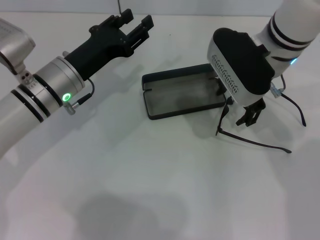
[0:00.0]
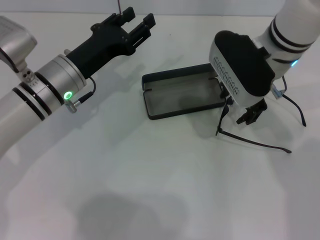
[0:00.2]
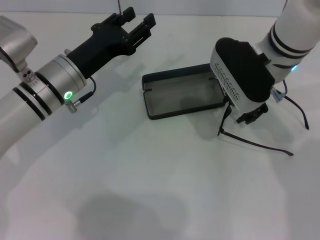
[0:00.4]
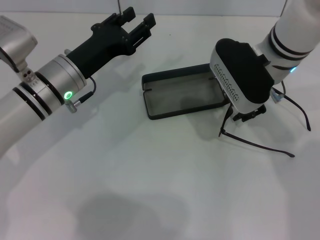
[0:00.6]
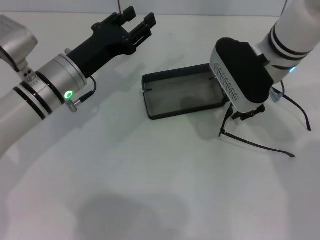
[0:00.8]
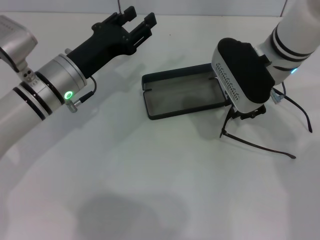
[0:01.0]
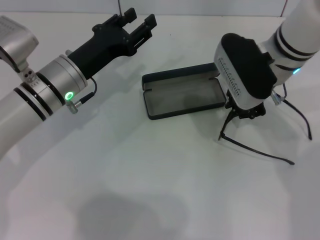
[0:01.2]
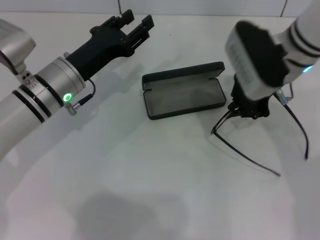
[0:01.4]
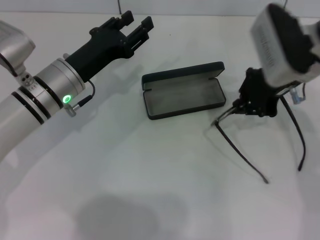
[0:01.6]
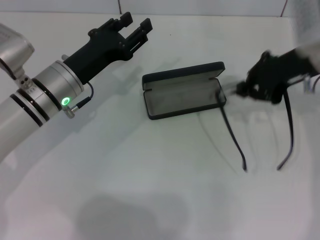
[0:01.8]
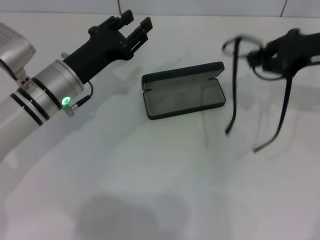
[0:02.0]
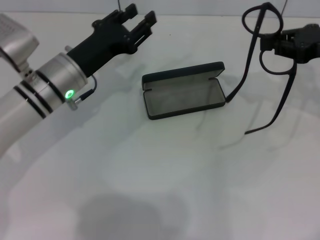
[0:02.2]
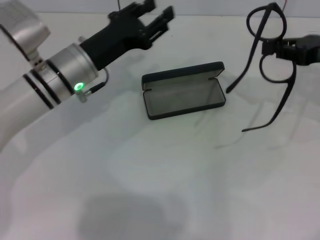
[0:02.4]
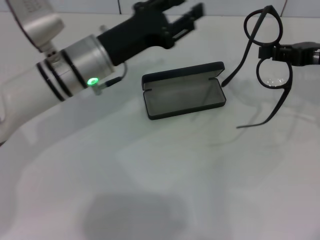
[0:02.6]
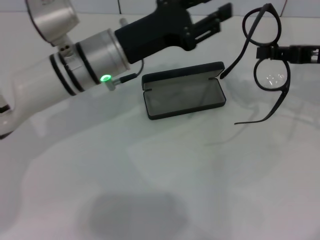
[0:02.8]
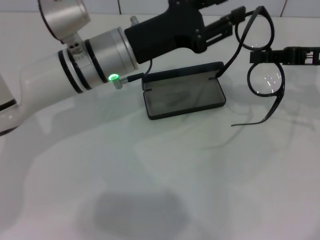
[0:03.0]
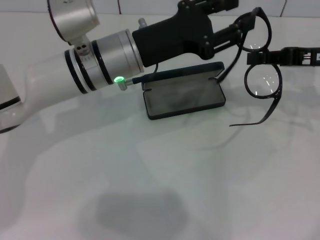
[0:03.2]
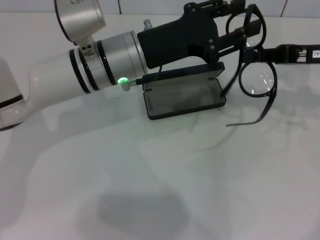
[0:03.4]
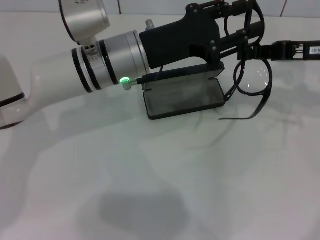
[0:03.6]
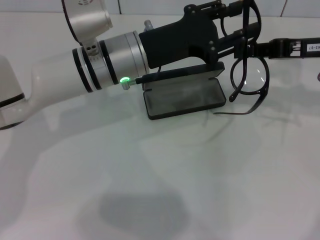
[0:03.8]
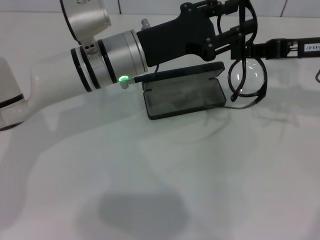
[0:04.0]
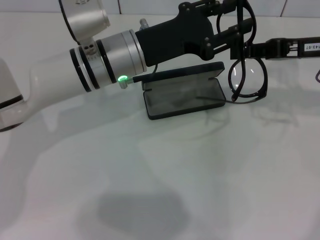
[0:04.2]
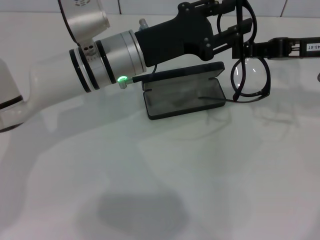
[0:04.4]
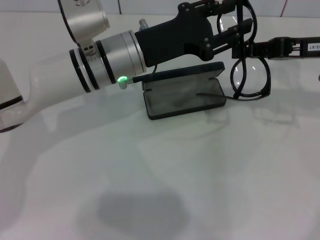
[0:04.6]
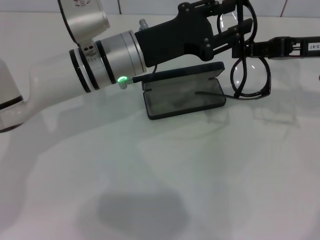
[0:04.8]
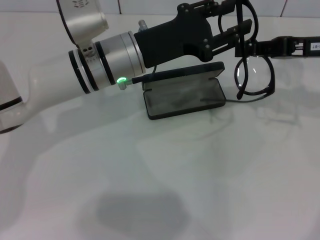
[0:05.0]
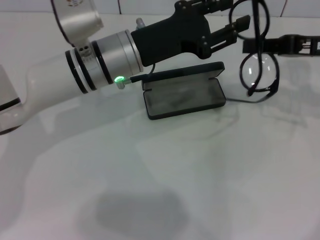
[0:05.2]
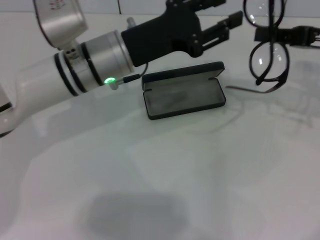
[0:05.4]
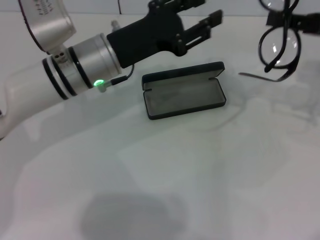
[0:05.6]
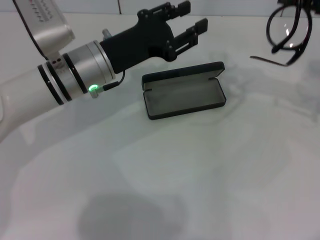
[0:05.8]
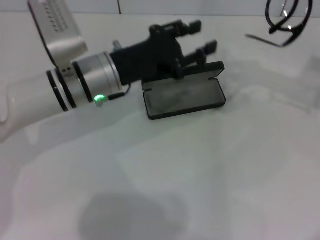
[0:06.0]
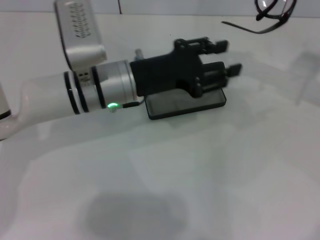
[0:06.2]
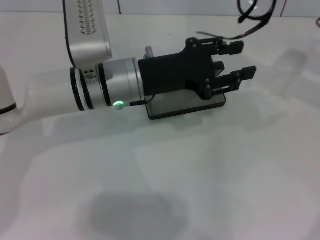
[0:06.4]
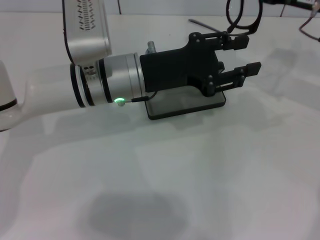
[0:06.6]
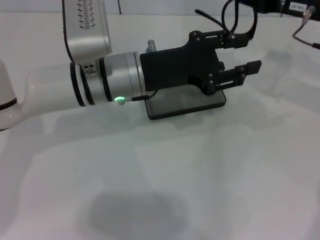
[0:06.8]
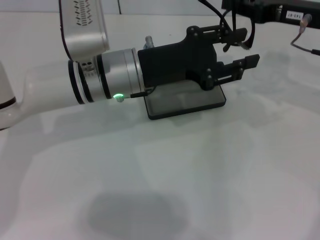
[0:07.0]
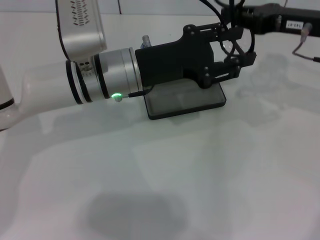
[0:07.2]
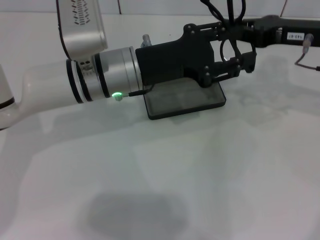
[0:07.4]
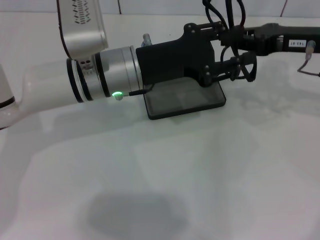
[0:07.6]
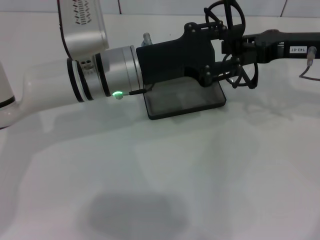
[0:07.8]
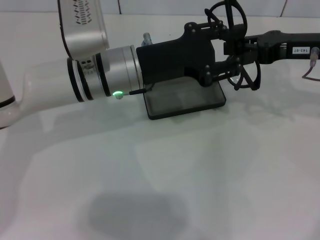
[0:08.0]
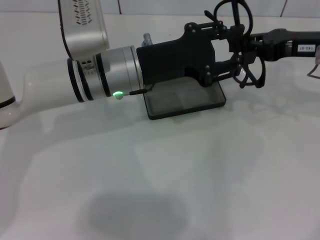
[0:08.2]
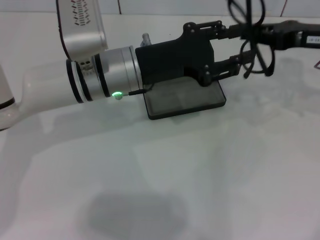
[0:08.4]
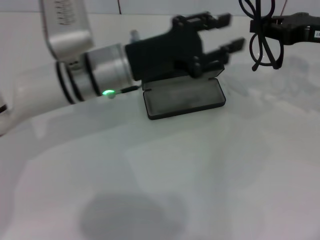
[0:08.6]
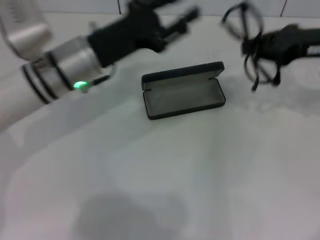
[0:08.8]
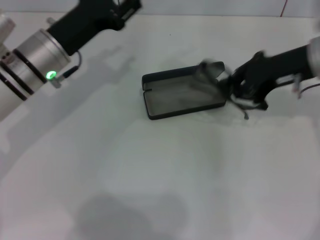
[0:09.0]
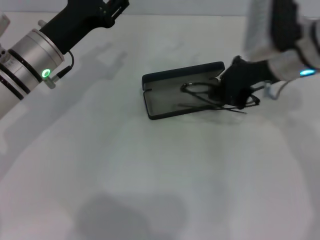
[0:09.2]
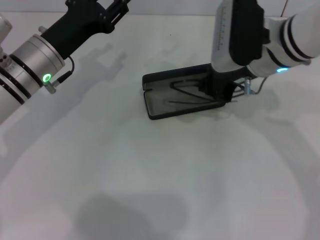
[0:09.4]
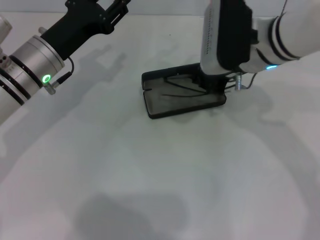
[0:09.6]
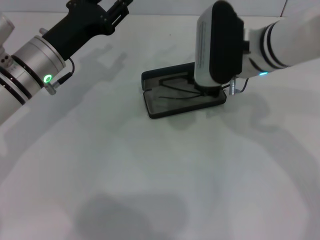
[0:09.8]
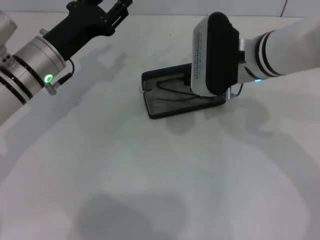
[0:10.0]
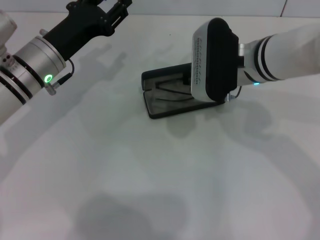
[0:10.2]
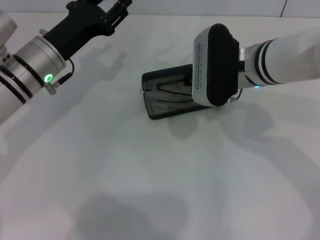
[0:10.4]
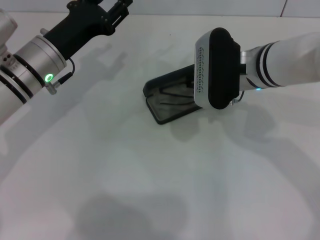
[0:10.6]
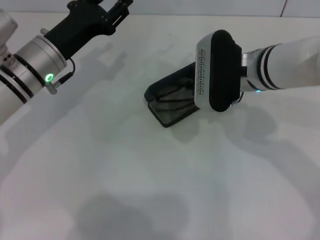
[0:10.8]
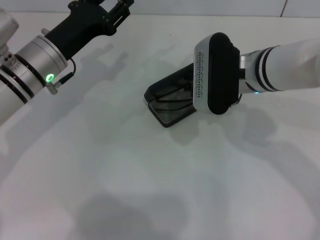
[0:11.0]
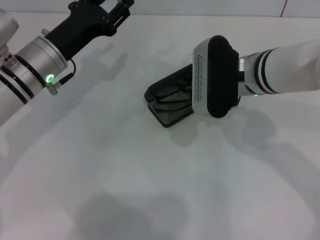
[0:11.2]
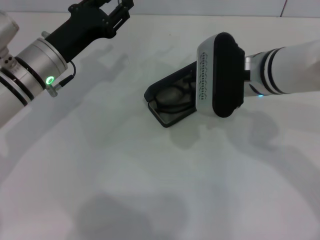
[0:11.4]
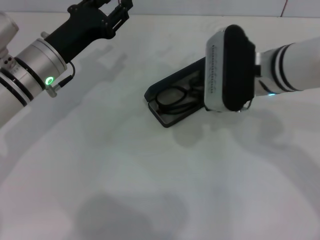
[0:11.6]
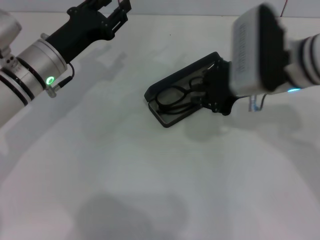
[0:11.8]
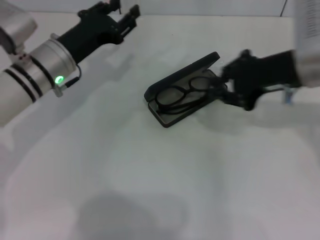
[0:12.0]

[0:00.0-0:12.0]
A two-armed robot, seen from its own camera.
Step, 0:01.2 to 0:07.8: Fold the frame with your left hand.
Step, 0:08.0 to 0:11.8: Put the glasses into the case with your right hand.
0:00.0 to 0:01.6: The right gripper travels to the right by some 5 cm, and closes its fingers.
0:01.6 to 0:03.0: The left gripper travels to the right and upward by about 10 cm; the right gripper travels to the right by some 10 cm.
0:03.0 to 0:04.4: The grippers stay close to where they were, moving slightly.
0:04.4 to 0:06.0: The right gripper shifts by about 5 cm.
0:06.0 to 0:07.6: The right gripper shifts some 5 cm to the left.
0:07.6 to 0:09.0: The left gripper heads to the left, covering roughly 10 cm.
0:09.0 to 0:10.4: The right gripper is displaced to the left by approximately 10 cm.
0:10.4 to 0:12.0: The right gripper heads to the right, covering about 10 cm.

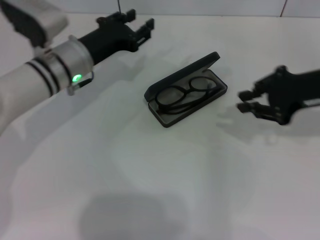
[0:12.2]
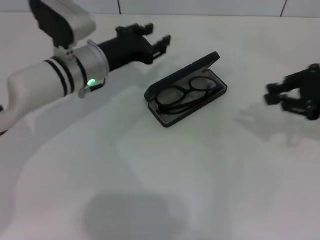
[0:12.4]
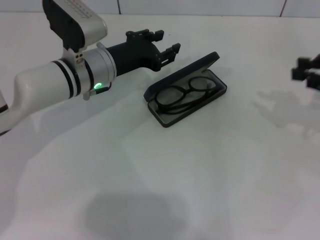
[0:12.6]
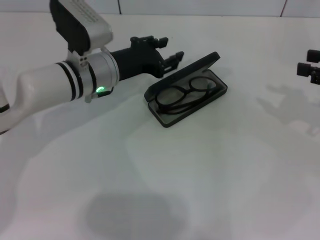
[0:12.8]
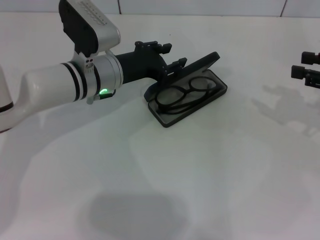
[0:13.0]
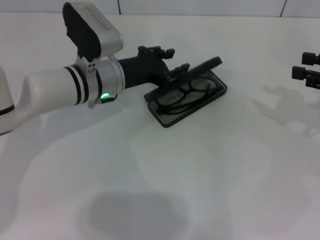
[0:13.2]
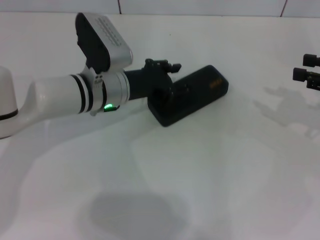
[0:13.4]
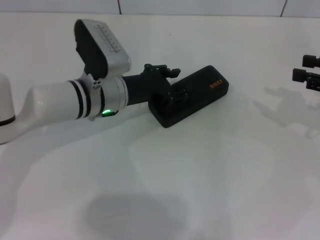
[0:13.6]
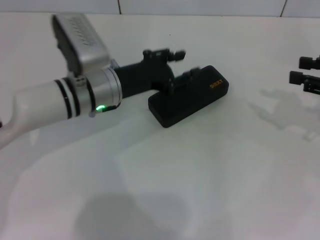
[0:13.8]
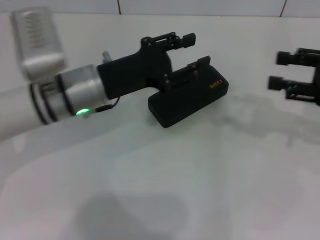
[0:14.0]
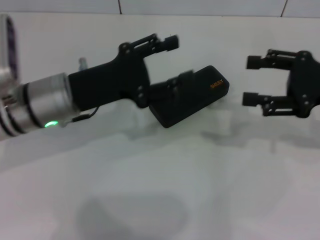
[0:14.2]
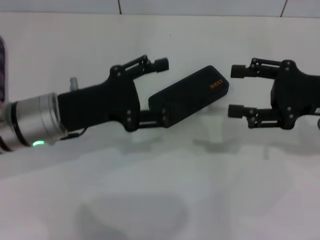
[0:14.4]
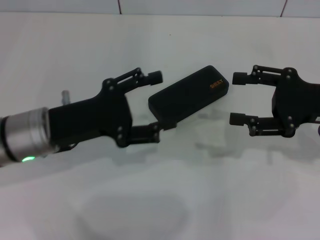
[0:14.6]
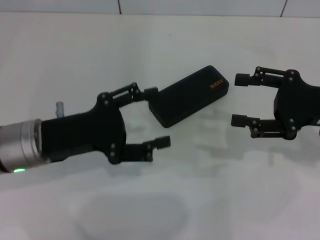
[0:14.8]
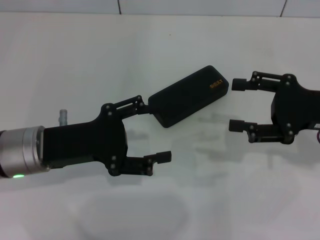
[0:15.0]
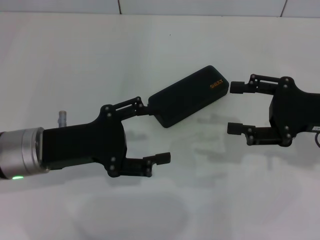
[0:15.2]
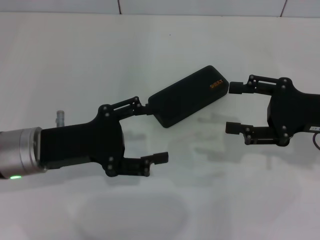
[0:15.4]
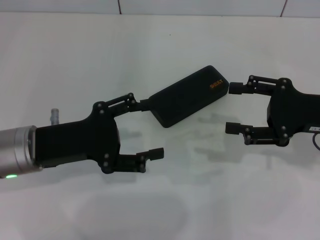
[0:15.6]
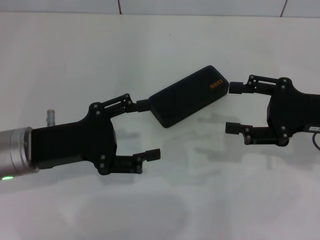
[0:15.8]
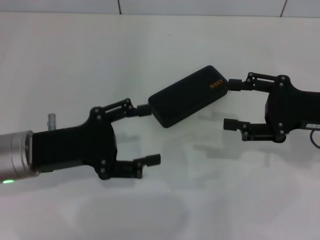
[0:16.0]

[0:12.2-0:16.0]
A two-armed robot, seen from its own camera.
Step, 0:12.2 to 0:13.6: Close the glasses case with your left hand.
0:12.2 to 0:13.4: The left gripper moves some 5 cm, while the right gripper travels to the right by roughly 10 cm, and opens its fingers.
0:13.4 to 0:14.8: The right gripper heads to the left, covering roughly 5 cm. The left gripper moves backward and to the left, roughly 15 cm, and opens up.
0:14.8 to 0:16.0: There are only small adjustments of the grippers.

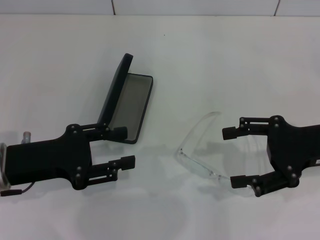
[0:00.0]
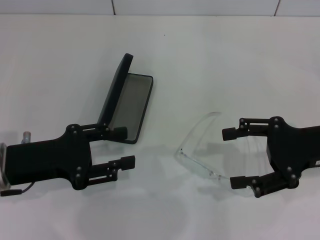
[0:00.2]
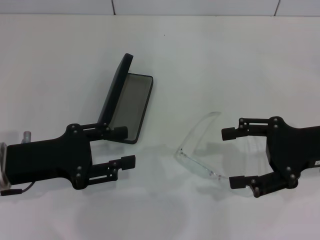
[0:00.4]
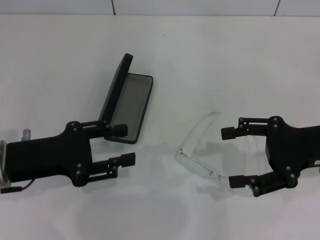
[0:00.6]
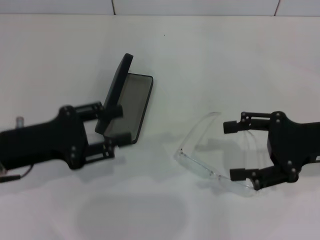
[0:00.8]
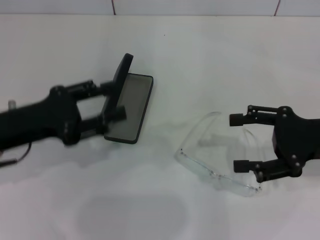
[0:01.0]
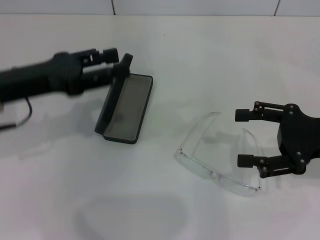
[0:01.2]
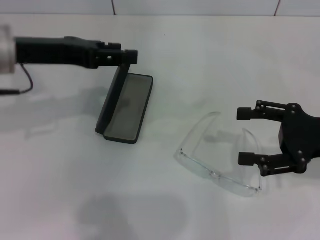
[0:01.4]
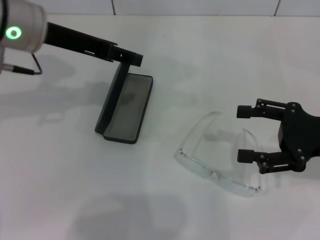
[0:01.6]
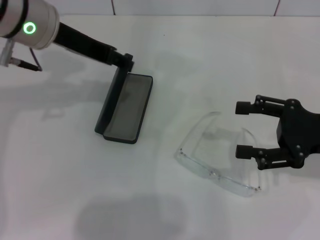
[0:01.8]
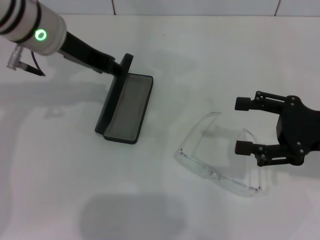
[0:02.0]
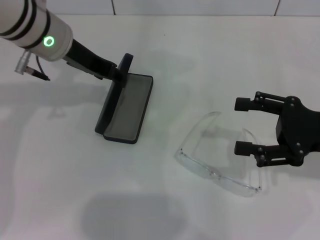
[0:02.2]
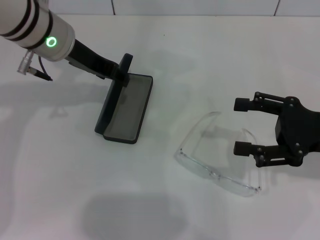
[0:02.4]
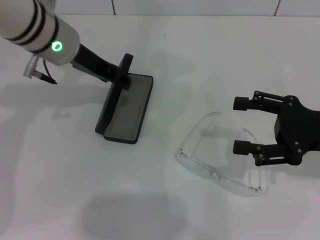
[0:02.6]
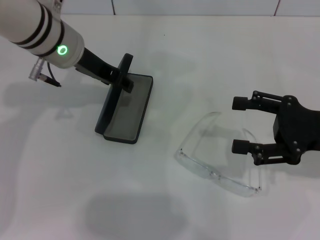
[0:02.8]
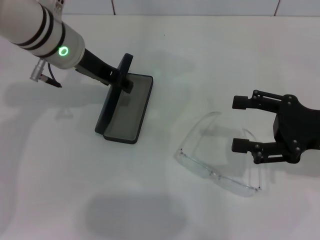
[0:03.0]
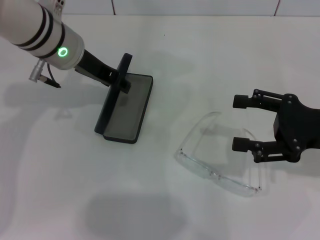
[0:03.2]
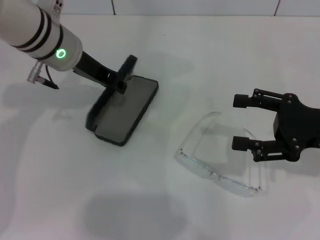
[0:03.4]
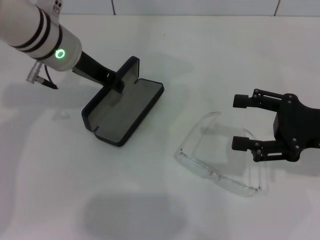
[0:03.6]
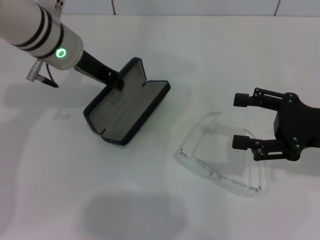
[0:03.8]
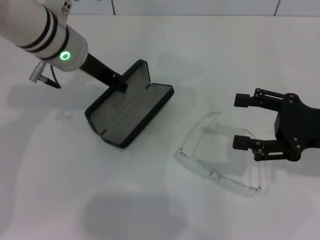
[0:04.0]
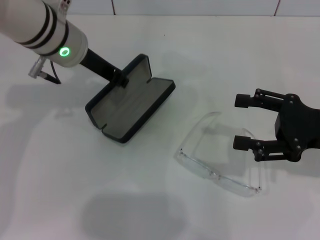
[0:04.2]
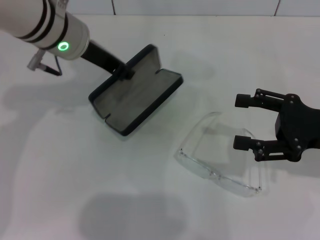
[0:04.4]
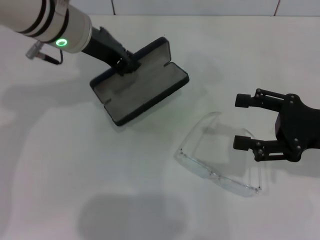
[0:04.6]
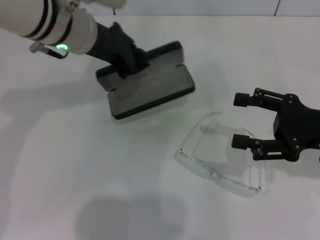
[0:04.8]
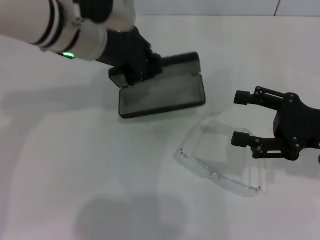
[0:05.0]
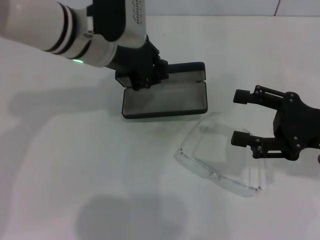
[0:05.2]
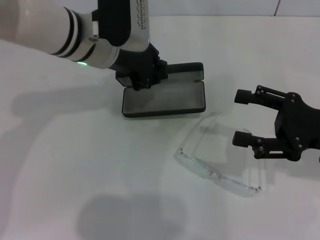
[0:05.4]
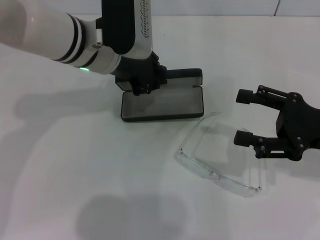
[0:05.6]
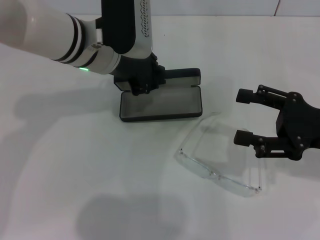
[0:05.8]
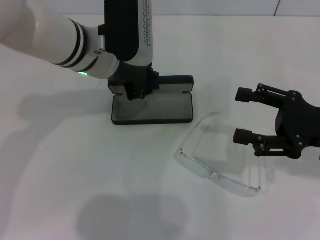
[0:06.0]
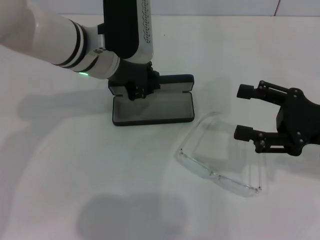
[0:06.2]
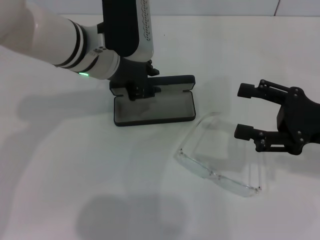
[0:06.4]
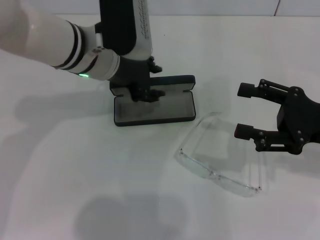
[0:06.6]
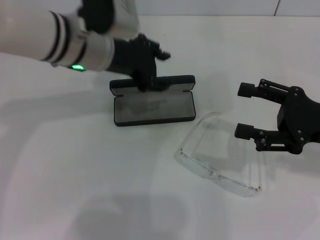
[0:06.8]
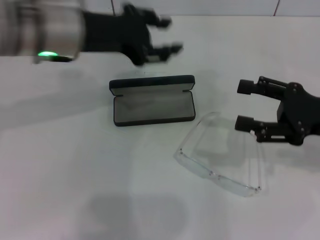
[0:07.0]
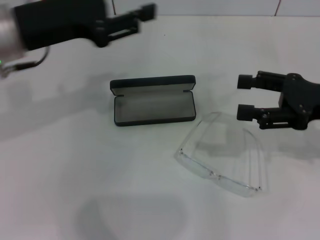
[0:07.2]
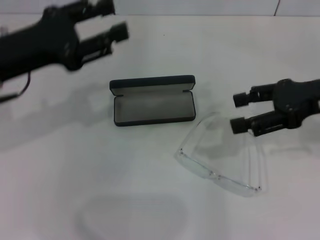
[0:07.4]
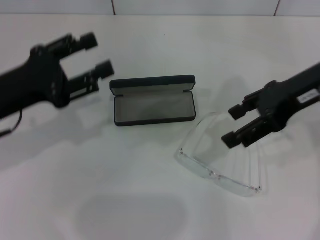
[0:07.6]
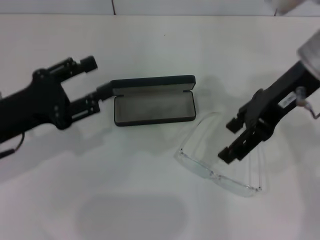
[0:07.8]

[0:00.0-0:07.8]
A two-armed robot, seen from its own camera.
Step, 0:00.0 to 0:03.6: Grab the glasses case with your left hand.
Step, 0:03.8 to 0:06.2: Place the glasses case in the center of the table with your left hand.
0:00.0 to 0:01.6: The left gripper goes approximately 20 cm upward, forward and to the right.
0:01.6 to 0:03.2: The left gripper shifts approximately 5 cm downward.
0:03.2 to 0:04.6: The left gripper closes its fingers.
0:04.6 to 0:06.2: The left gripper changes place by about 5 cm.
0:06.2 to 0:07.8: The right gripper is displaced upward, to the left and forward by approximately 20 cm; the left gripper moves to the left and backward, some 20 cm, and opens its fingers.
